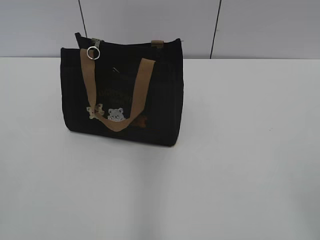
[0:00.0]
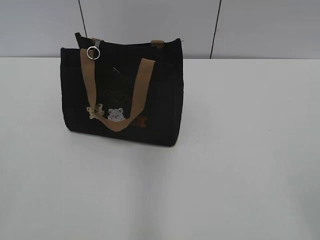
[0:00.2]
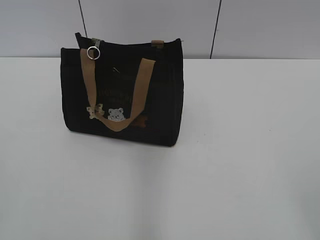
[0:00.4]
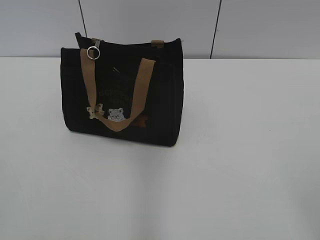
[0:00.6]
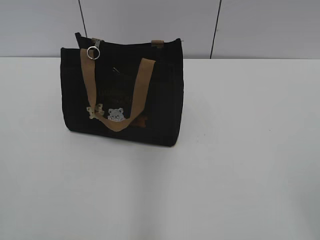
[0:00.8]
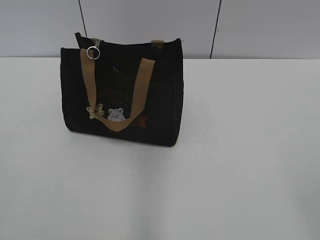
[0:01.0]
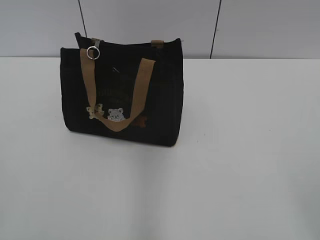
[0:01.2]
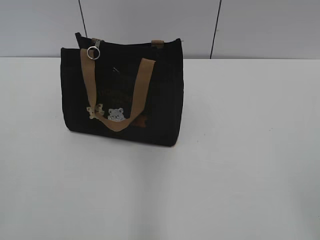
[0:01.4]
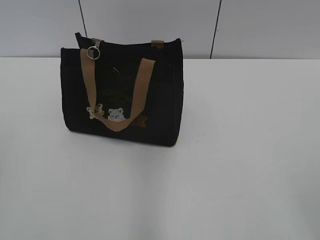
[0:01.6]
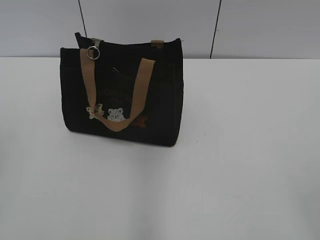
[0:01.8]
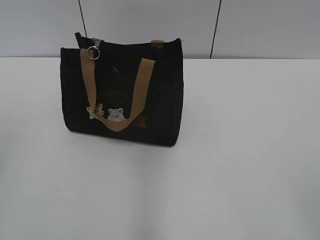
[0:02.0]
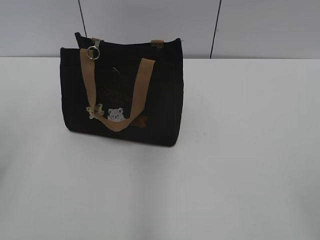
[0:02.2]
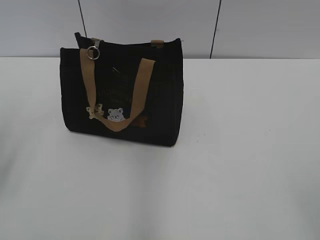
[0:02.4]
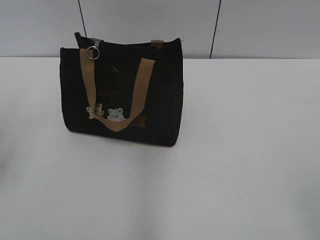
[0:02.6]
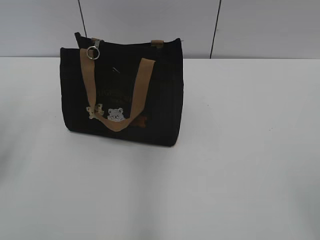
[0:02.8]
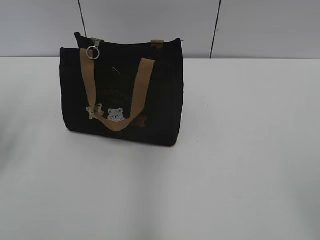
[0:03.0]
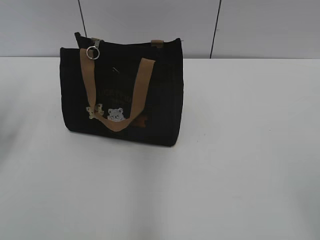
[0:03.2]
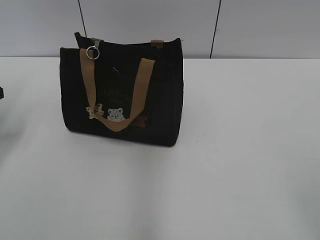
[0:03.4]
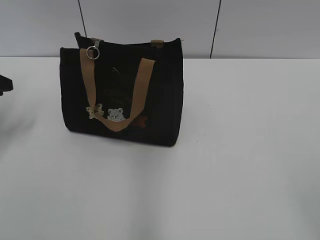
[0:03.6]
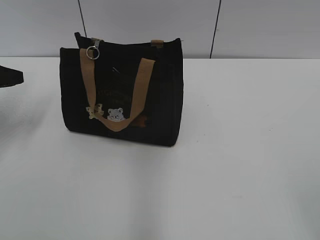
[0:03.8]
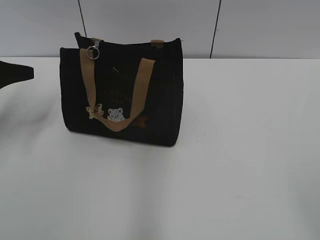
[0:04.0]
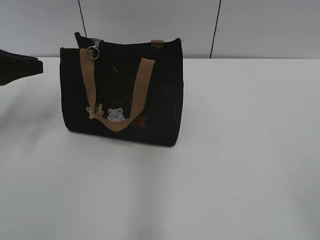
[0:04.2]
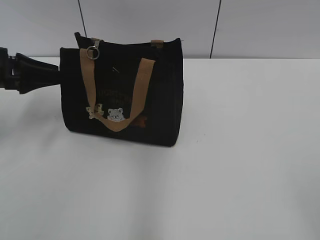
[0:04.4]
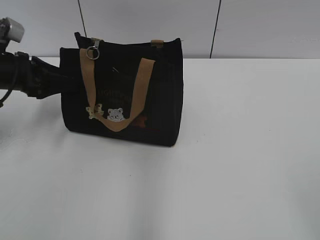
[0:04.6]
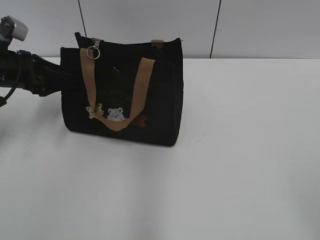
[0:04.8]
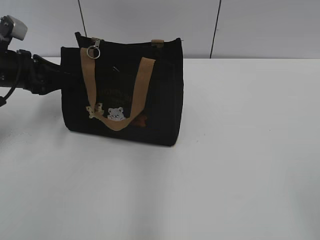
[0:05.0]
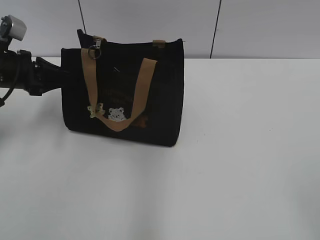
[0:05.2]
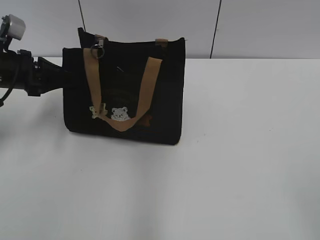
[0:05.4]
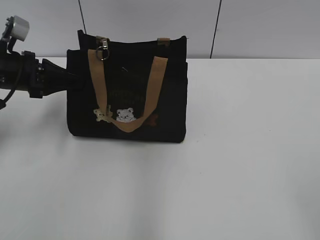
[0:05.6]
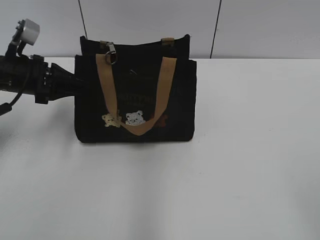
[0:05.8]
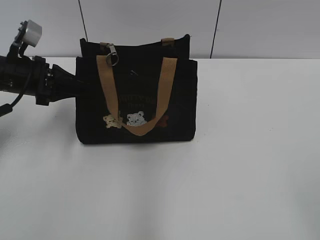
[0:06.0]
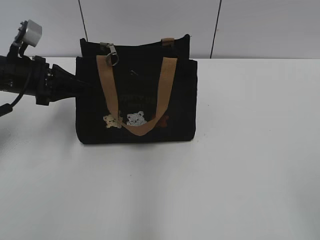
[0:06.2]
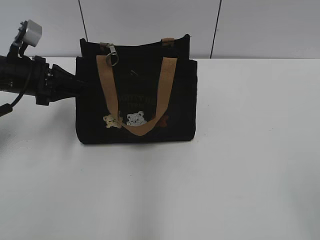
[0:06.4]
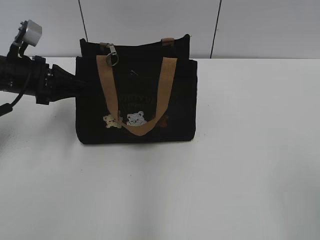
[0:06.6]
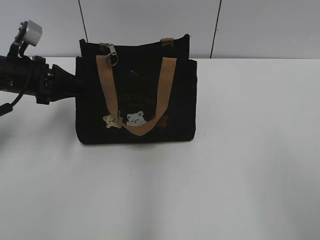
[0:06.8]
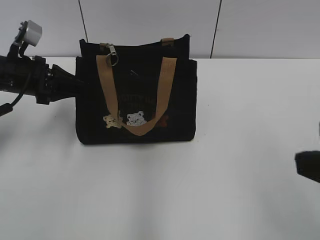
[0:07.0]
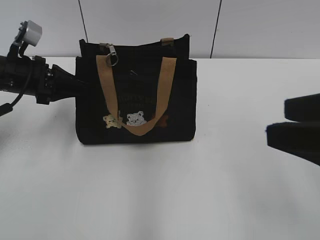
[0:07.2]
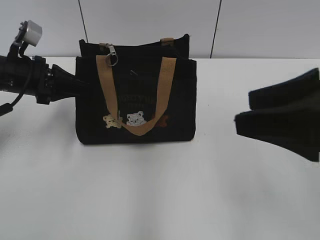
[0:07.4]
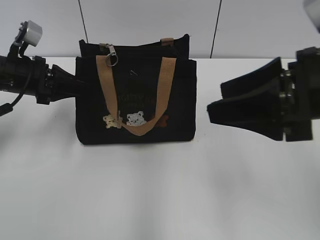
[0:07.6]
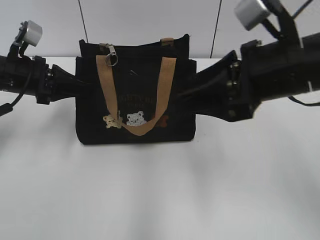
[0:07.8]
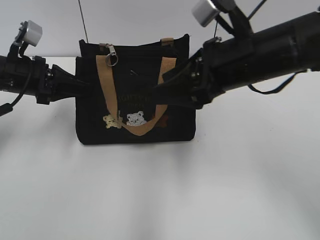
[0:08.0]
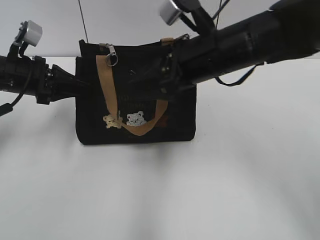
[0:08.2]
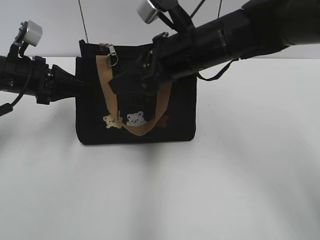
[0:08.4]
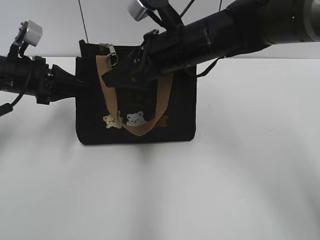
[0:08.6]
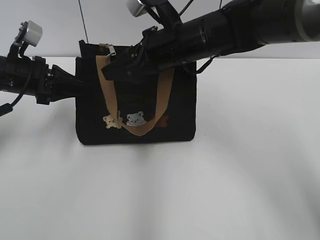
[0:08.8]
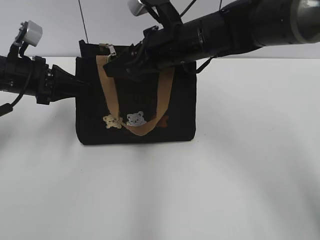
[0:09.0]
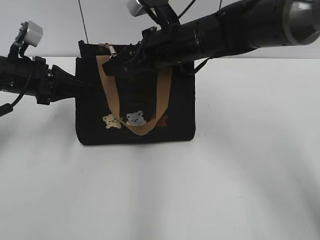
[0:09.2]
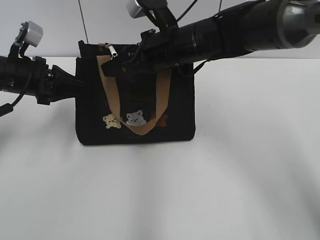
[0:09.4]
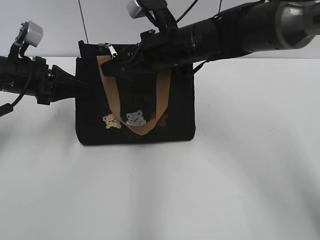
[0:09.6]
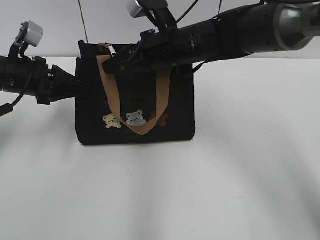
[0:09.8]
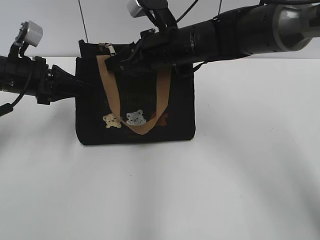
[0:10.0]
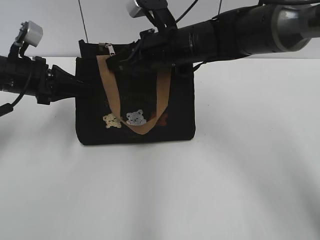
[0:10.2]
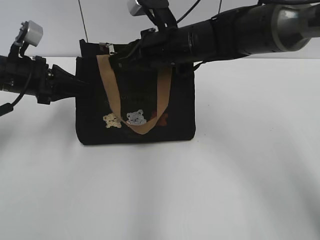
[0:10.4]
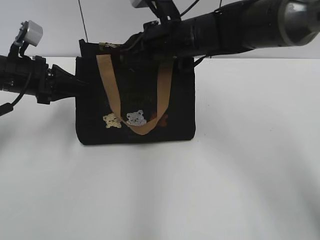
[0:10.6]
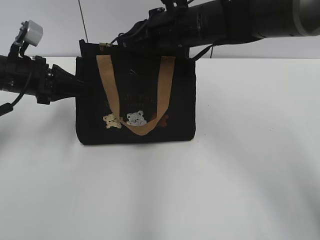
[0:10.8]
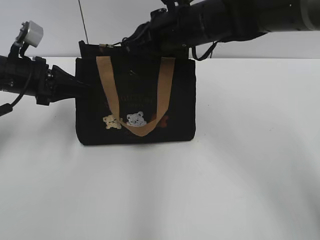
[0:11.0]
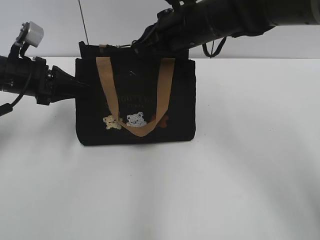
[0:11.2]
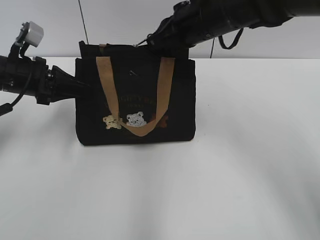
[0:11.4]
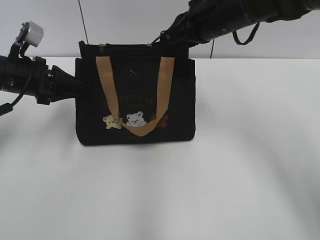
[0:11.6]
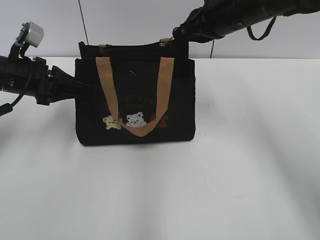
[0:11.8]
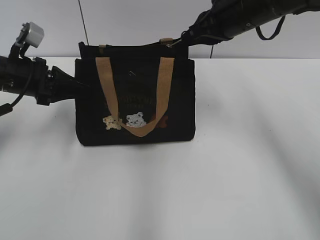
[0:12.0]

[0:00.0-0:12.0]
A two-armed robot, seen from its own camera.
0:01.6 to 0:03.0: The left gripper travels forward by some 25 cm.
0:03.0 to 0:04.4: The left gripper is displaced forward by about 10 cm.
0:04.4 to 0:06.0: The left gripper is displaced to the right by roughly 10 cm, and closes up.
0:06.0 to 0:07.6: The right gripper moves forward and to the left, approximately 20 cm.
0:07.6 to 0:09.0: The right gripper travels forward and to the left by some 25 cm.
0:09.0 to 0:10.4: The right gripper closes up.
0:10.4 to 0:12.0: The right gripper moves to the right and upward, about 10 cm.

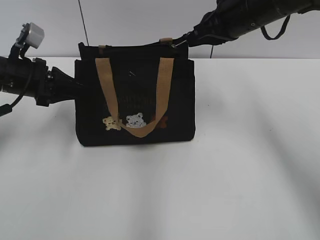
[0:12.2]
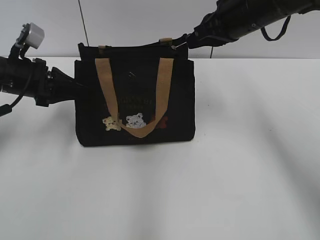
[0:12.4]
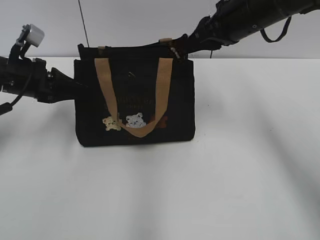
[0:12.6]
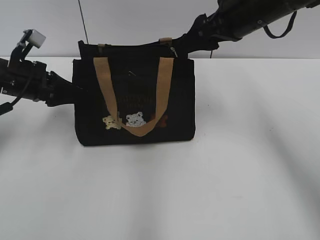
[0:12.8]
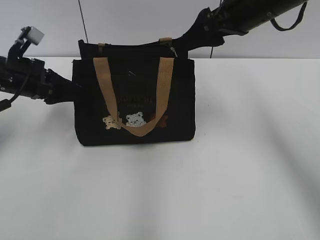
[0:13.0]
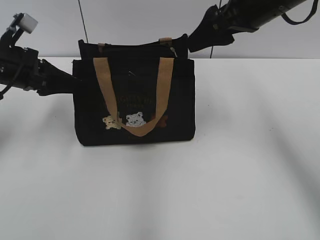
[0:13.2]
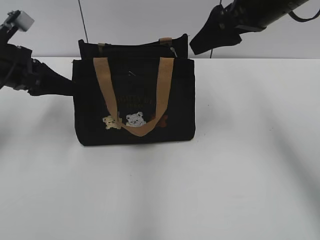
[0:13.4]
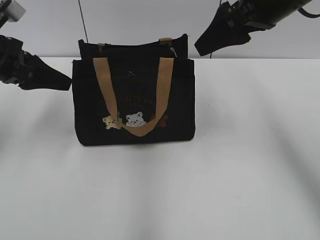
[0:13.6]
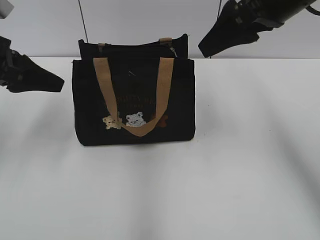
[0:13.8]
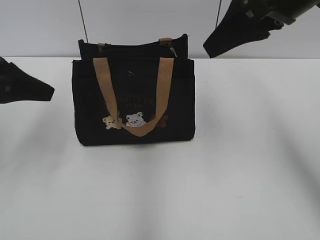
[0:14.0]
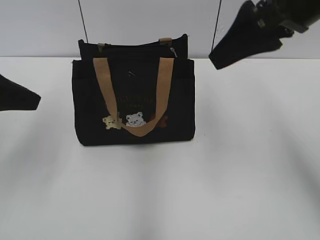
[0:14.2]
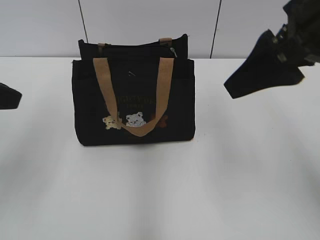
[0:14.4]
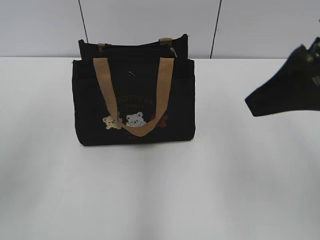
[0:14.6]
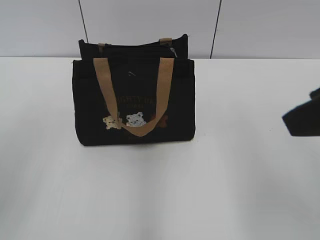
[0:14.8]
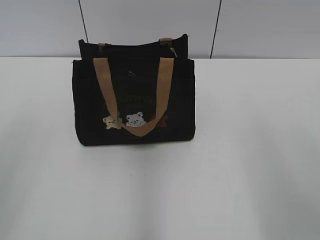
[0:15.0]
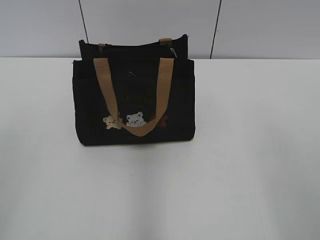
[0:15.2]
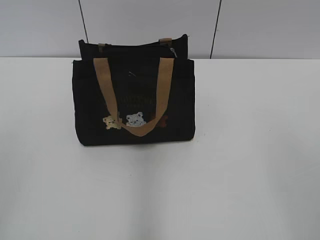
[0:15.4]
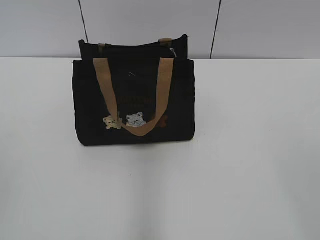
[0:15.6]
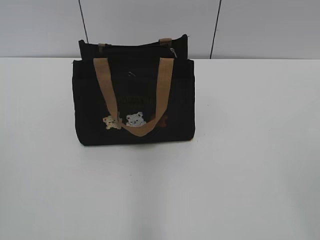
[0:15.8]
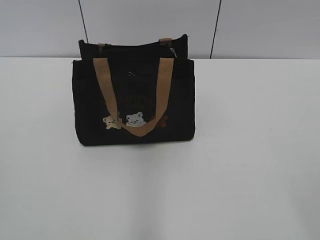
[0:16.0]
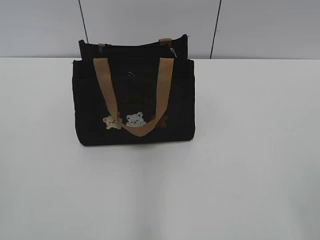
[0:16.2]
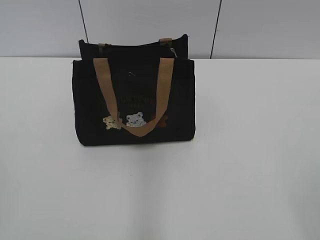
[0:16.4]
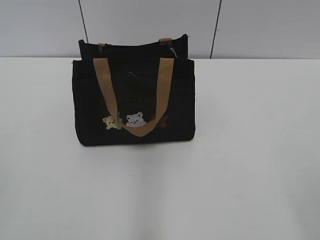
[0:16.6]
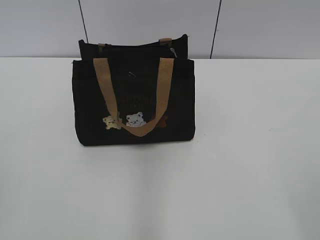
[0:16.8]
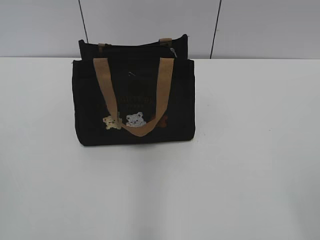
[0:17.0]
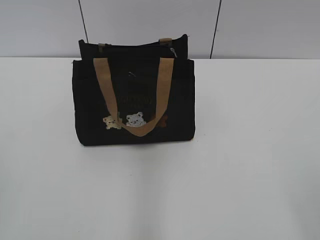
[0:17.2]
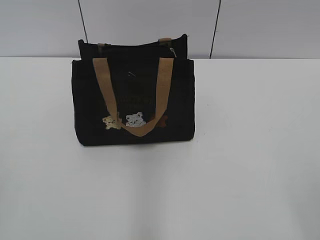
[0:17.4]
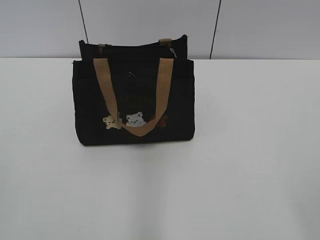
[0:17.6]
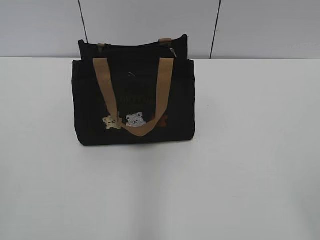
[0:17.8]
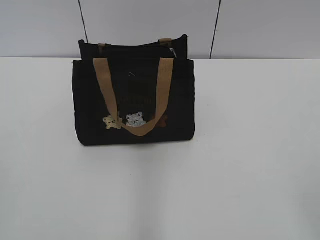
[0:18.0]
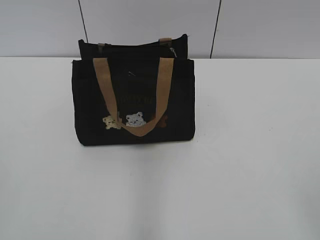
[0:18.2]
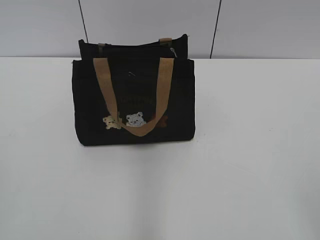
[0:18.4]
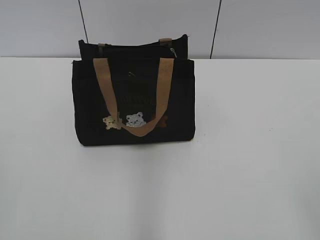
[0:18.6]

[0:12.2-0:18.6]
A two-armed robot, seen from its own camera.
Step, 0:12.6 to 0:13.4: Hold the bag with your left hand.
0:12.2 to 0:13.8: The left gripper travels upward by about 5 cm, and opens. Meanwhile the right gripper goes some 10 cm backward and upward, and opens.
0:13.8 to 0:15.4: The left gripper shifts approximately 30 cm backward and upward; the right gripper travels backward by approximately 25 cm.

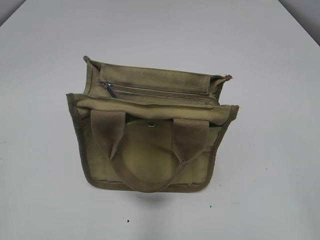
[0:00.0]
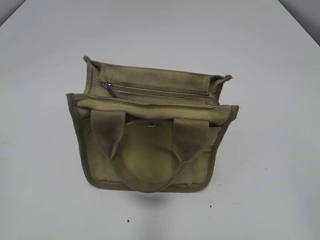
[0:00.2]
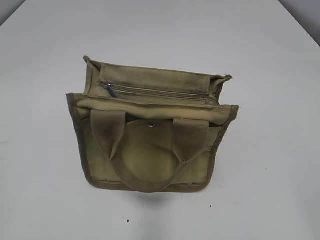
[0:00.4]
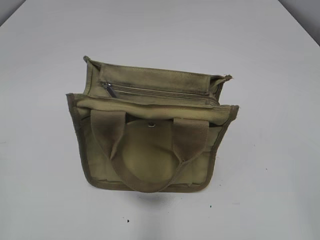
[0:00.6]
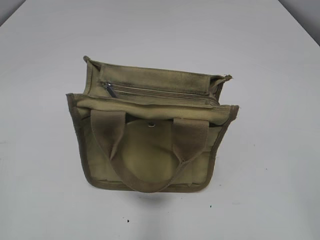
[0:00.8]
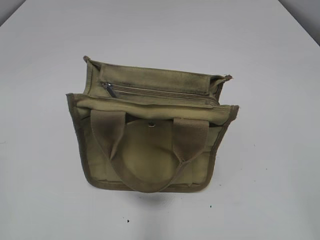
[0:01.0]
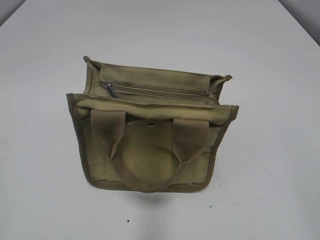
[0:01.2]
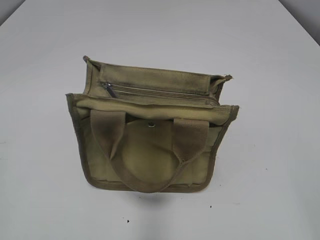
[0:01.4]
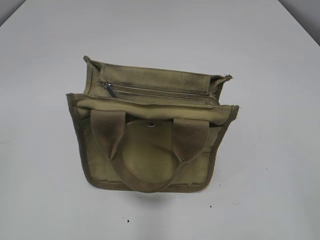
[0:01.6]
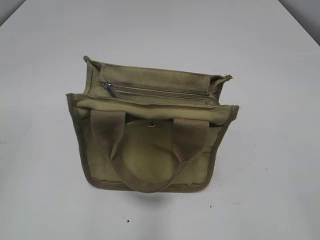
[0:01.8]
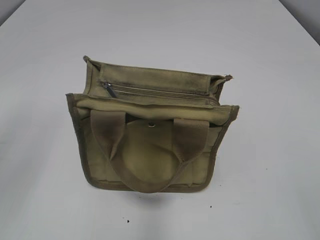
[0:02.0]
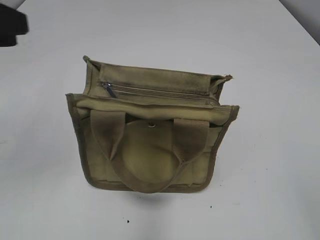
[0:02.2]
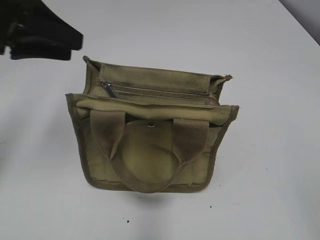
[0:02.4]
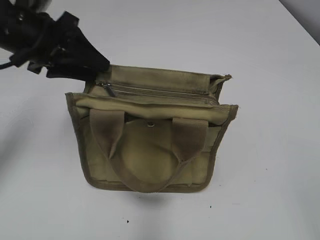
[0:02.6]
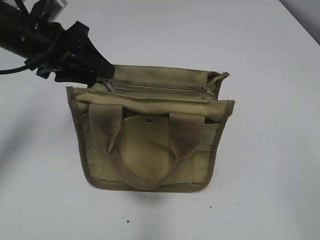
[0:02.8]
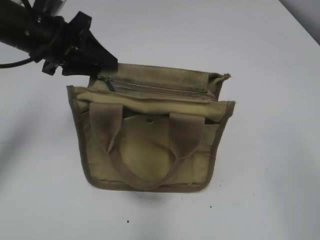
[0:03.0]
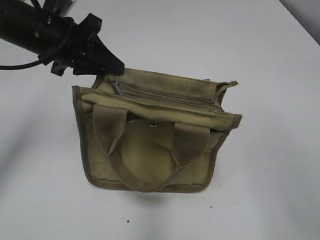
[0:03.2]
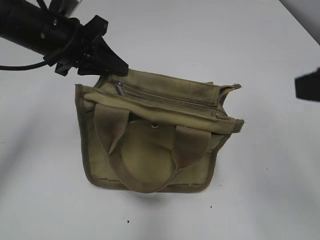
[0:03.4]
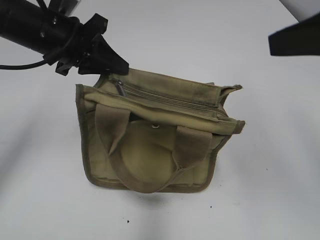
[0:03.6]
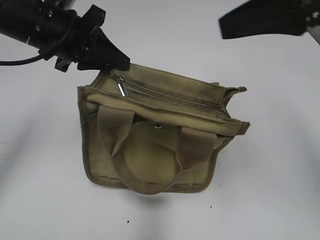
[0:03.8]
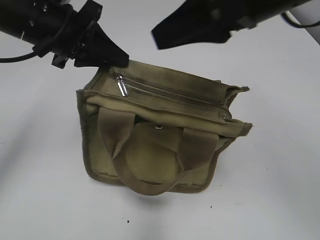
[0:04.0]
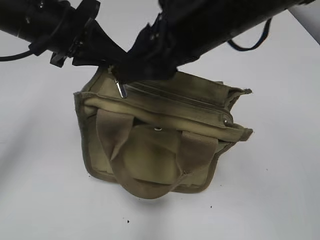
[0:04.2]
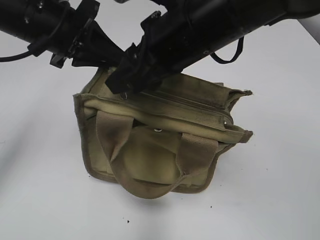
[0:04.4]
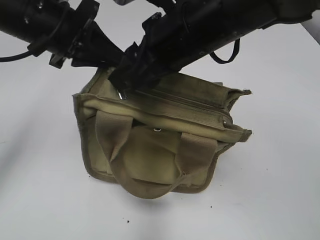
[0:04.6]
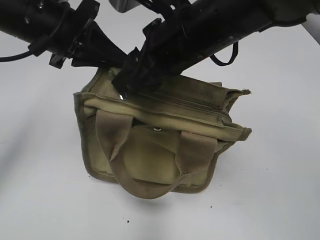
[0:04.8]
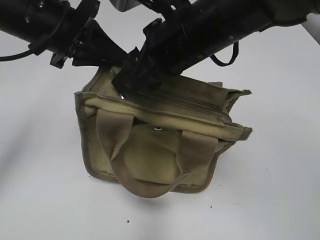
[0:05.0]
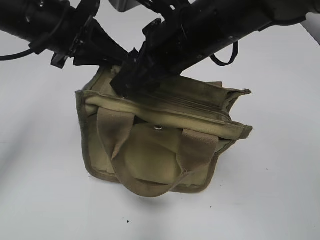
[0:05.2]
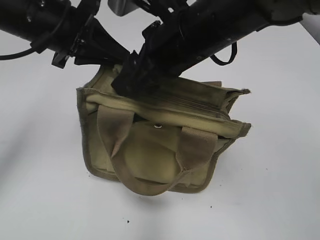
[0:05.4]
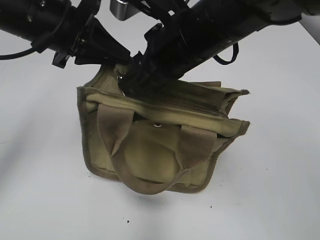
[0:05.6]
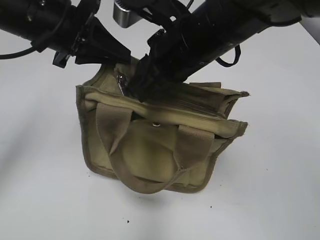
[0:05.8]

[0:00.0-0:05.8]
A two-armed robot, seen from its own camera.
0:01.4 to 0:02.8: The left gripper travels forward and to the right by some 35 cm.
0:02.8 to 0:04.4: The left gripper closes its fingers. The right gripper goes about 35 cm forward and to the left.
0:04.4 to 0:05.8: The right gripper closes.
